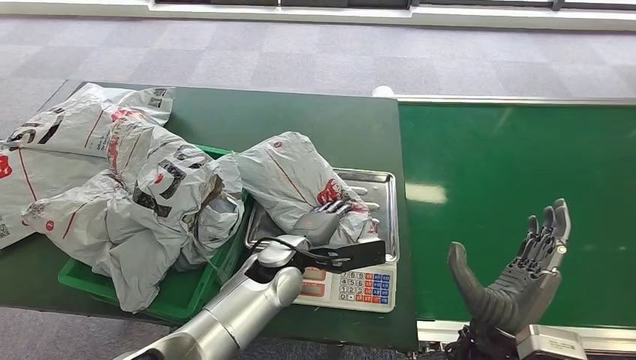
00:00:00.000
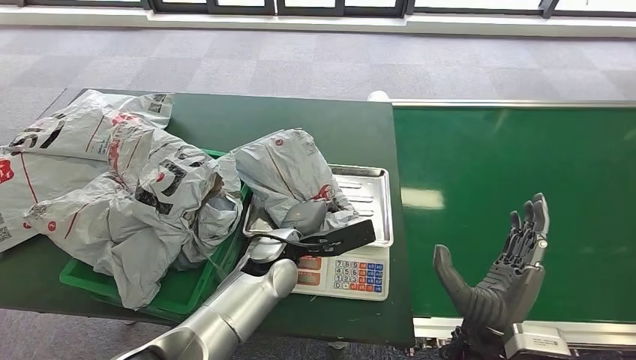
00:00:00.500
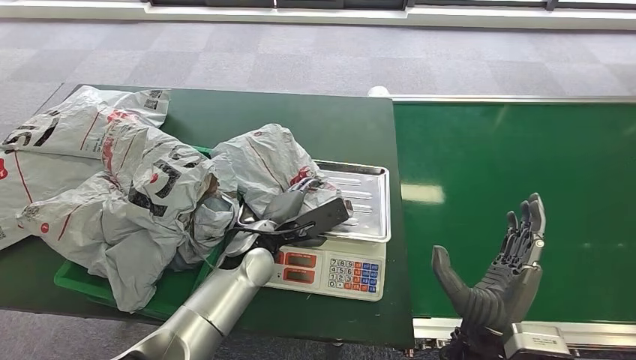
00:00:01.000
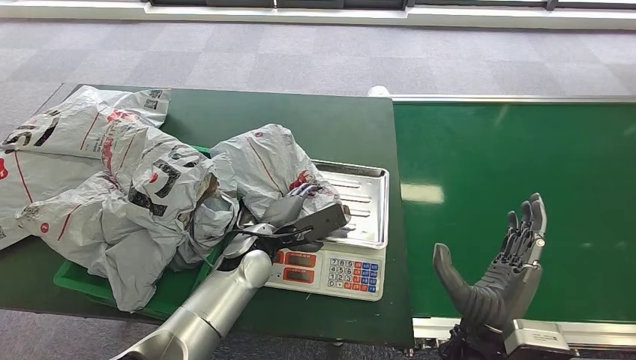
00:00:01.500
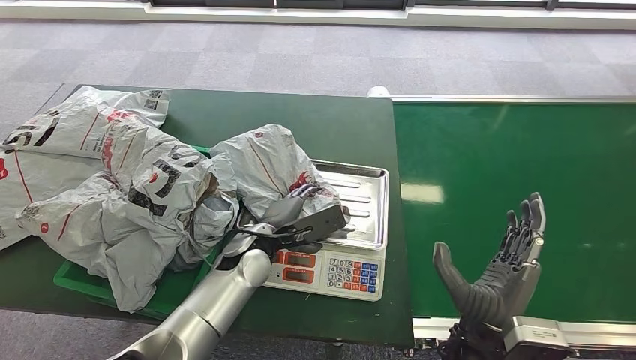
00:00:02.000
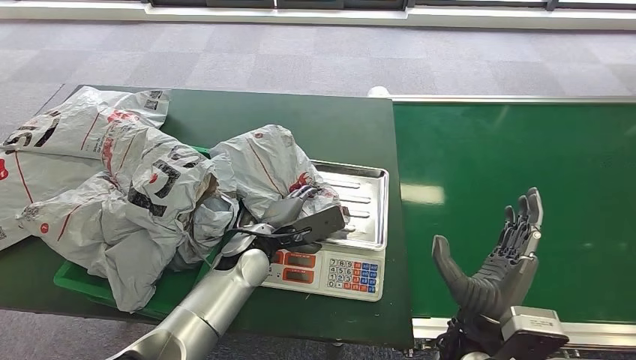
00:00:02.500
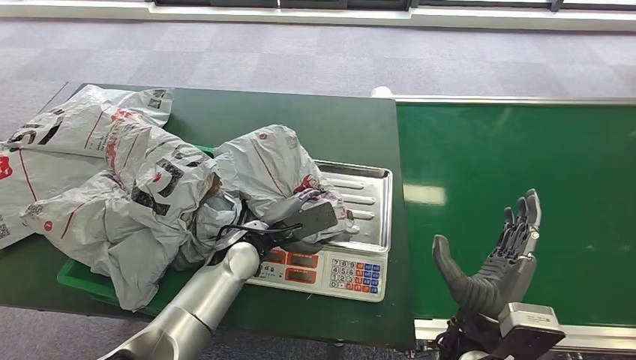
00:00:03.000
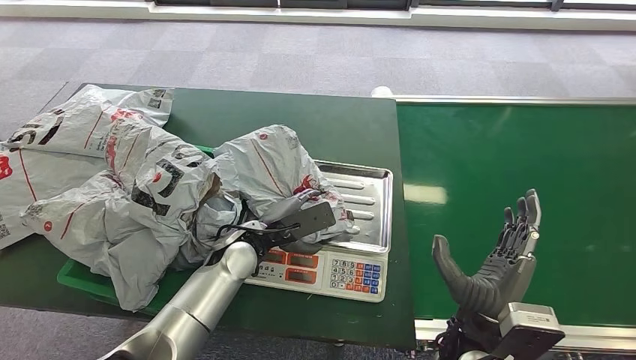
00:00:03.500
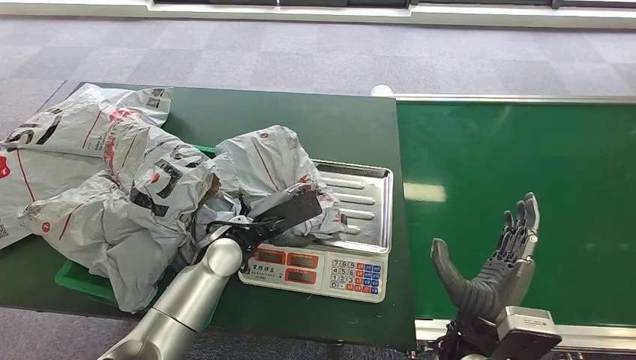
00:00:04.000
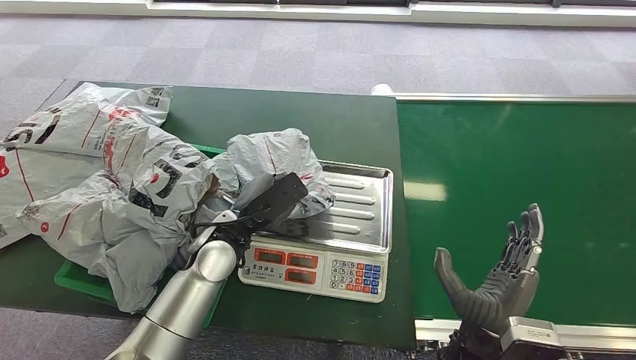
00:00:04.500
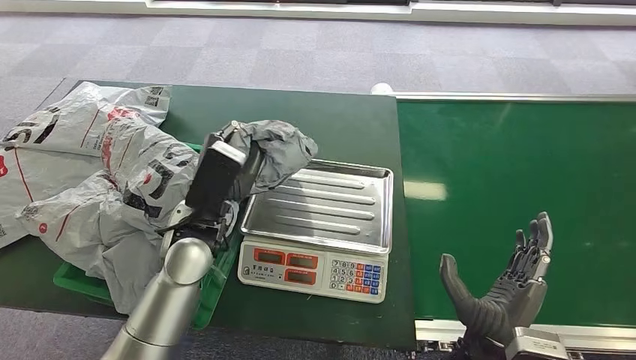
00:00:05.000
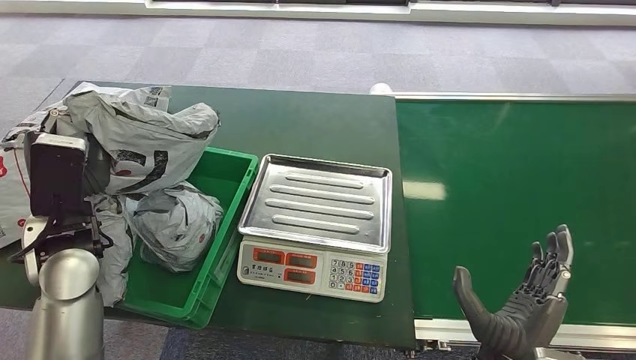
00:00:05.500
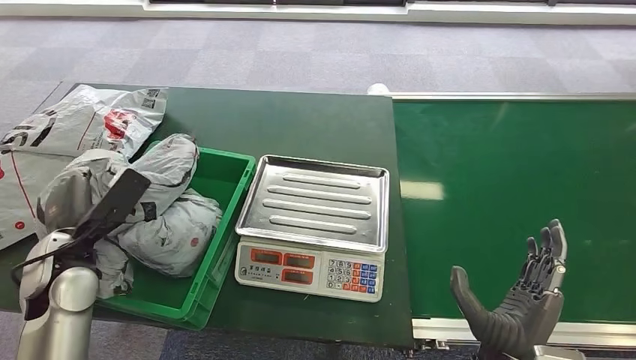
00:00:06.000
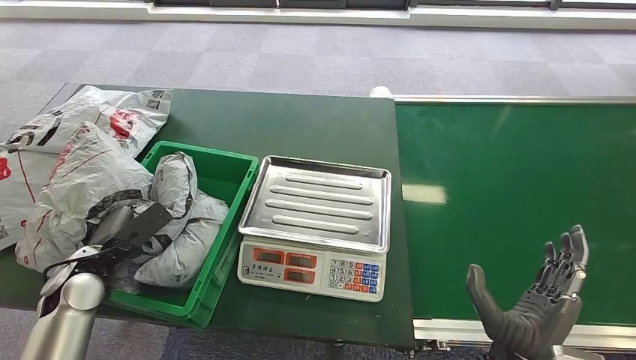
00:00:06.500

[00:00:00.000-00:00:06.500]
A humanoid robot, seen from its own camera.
Step, 00:00:02.500 to 00:00:05.000: Pick up the package from the inbound machine.
Step, 00:00:05.500 to 00:00:06.500: Place the package into the parcel locker.

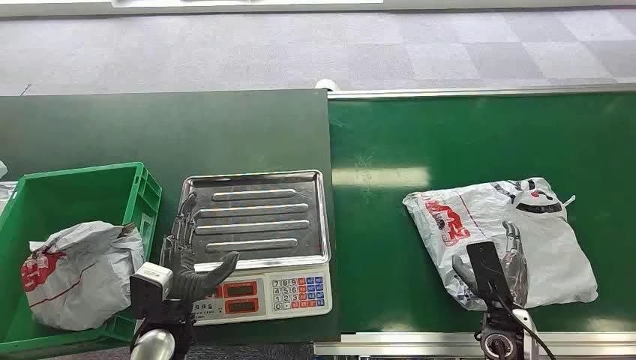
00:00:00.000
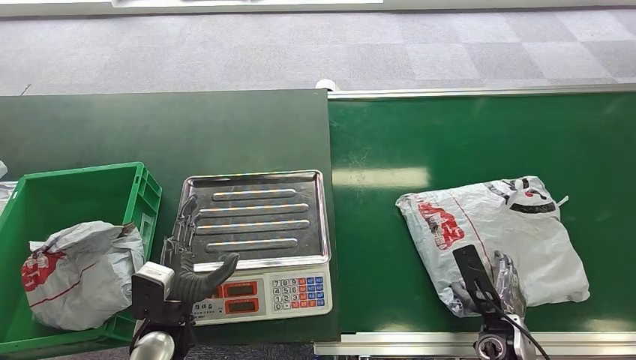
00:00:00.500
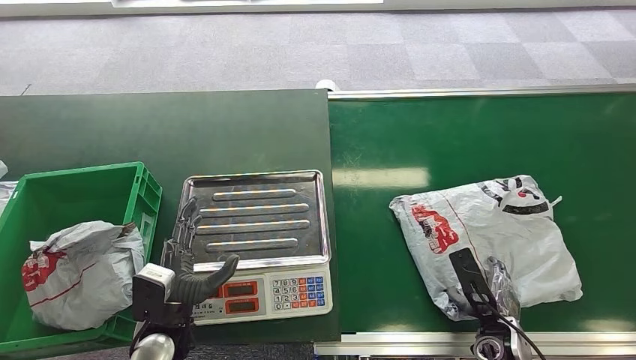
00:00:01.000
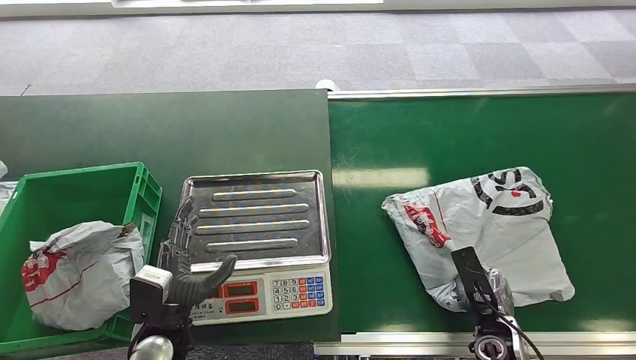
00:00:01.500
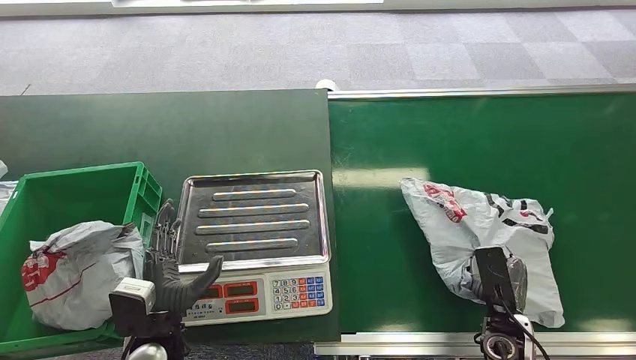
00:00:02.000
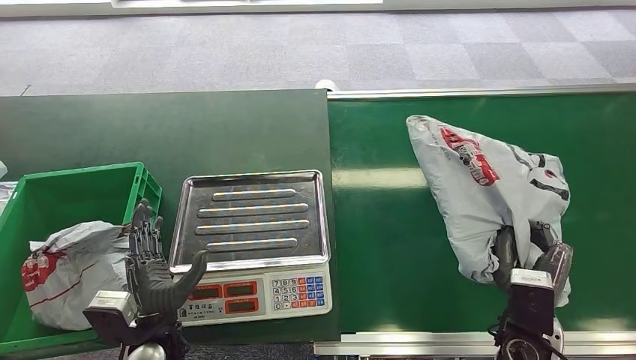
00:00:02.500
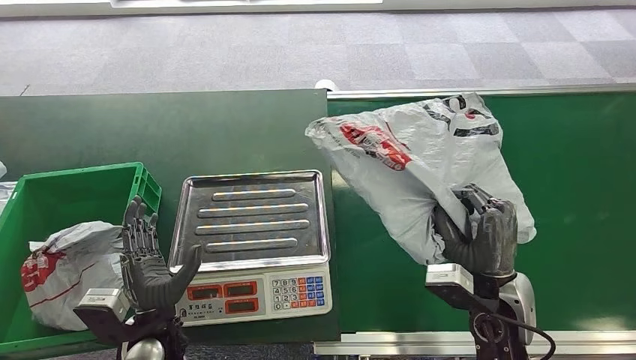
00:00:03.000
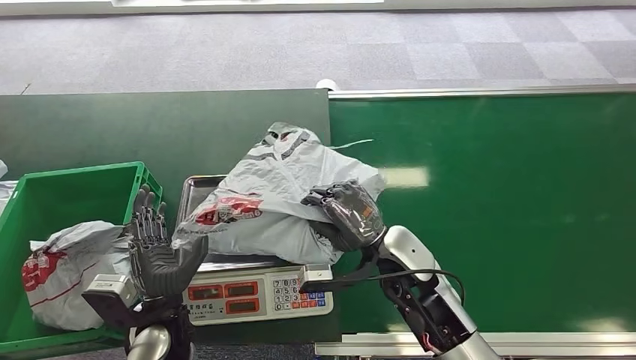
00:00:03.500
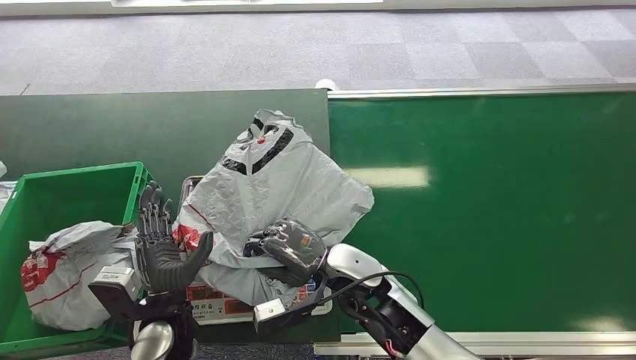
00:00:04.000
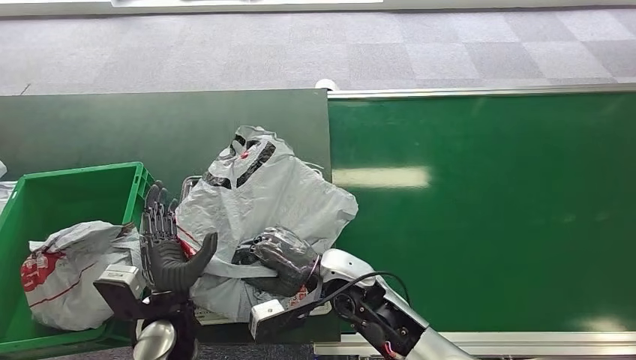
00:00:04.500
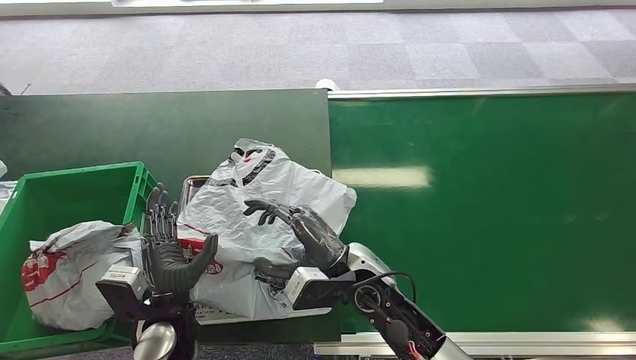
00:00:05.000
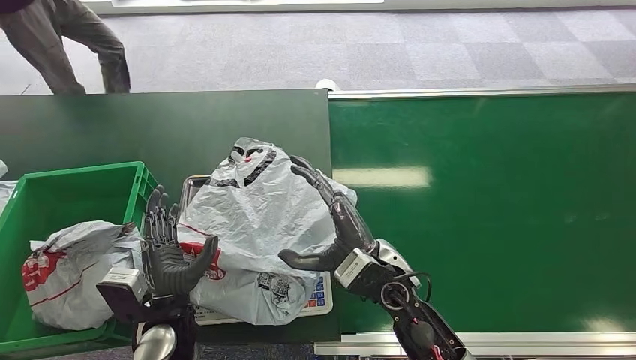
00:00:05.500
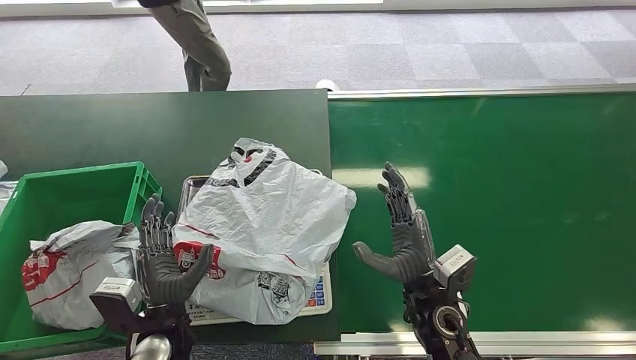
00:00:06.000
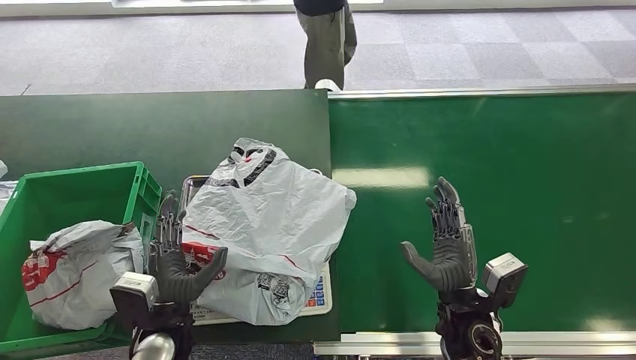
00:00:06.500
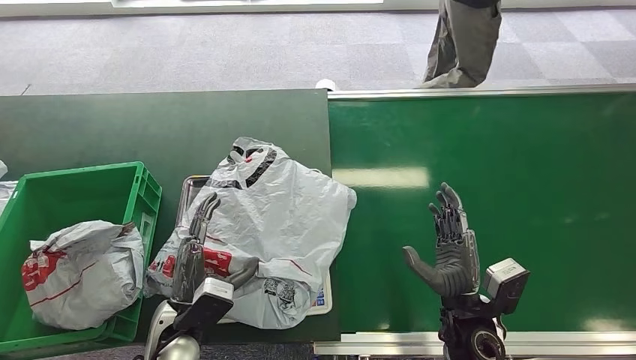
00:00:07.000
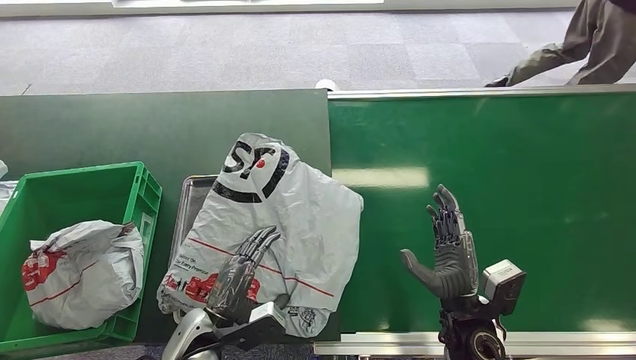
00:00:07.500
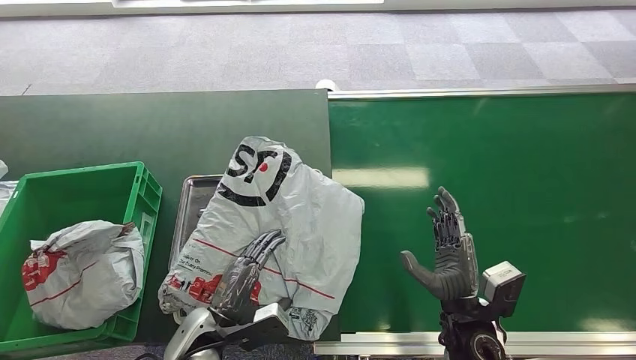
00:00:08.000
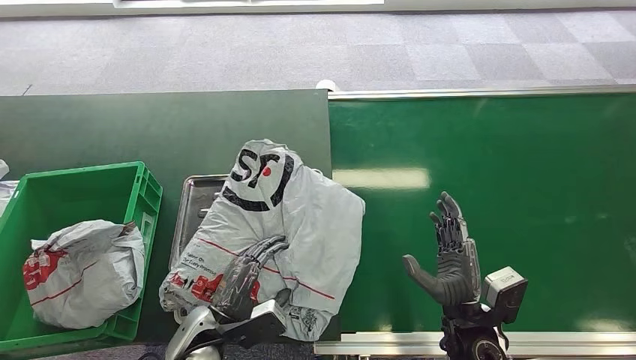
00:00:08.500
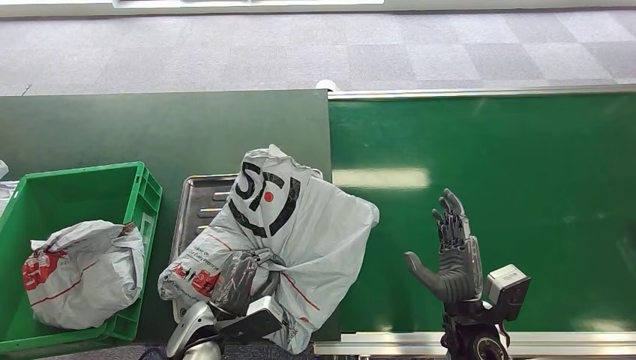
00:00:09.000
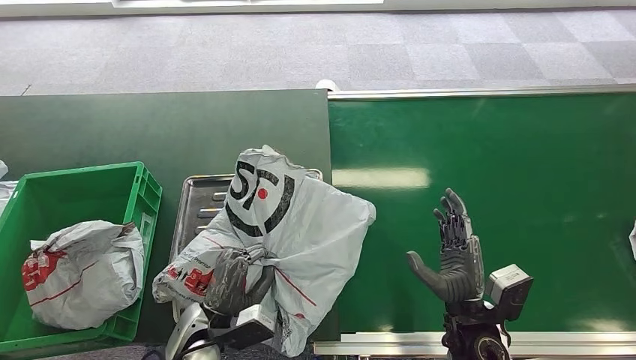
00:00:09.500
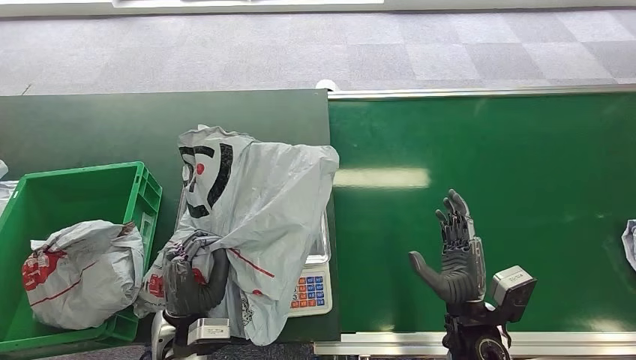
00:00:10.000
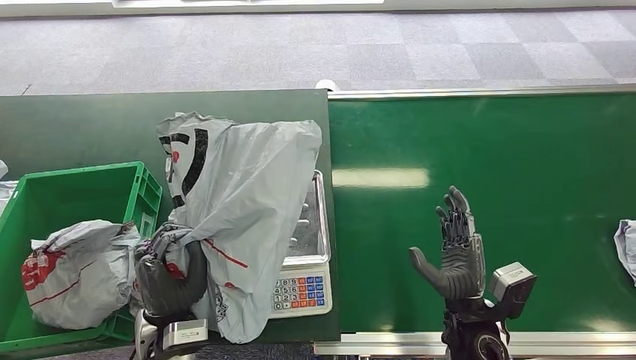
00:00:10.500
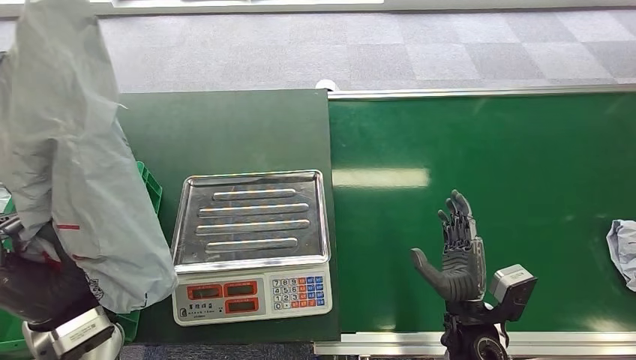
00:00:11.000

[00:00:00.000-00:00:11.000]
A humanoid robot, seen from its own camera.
Step, 00:00:00.000 to 00:00:02.500: Pick up the package from the conveyor belt.
Step, 00:00:03.500 to 00:00:05.000: Place the package onto the inbound machine.
Step, 00:00:08.500 to 00:00:10.500: Pick up the package from the inbound machine.
00:00:07.500 to 00:00:09.000: The hands stay close to where they were, moving slightly.

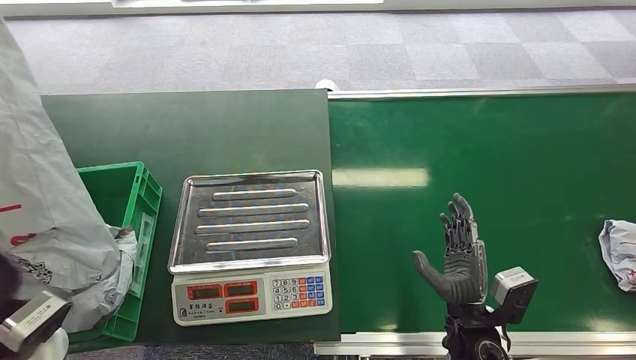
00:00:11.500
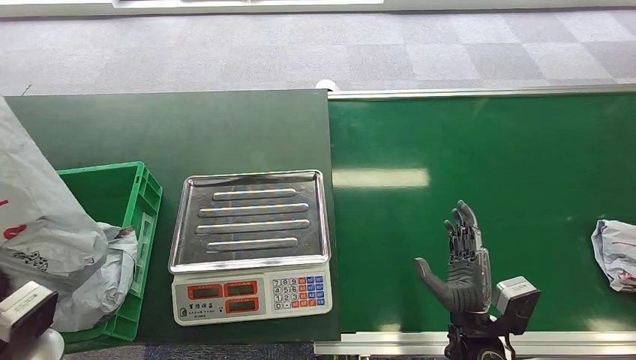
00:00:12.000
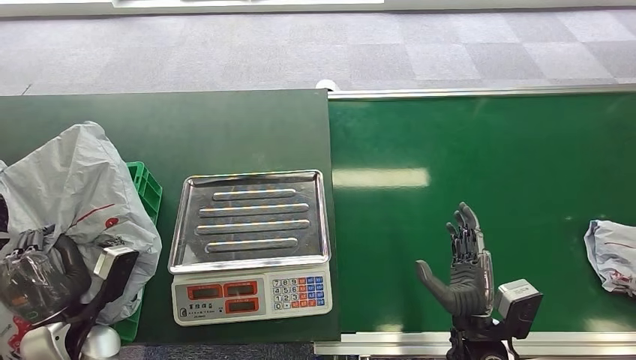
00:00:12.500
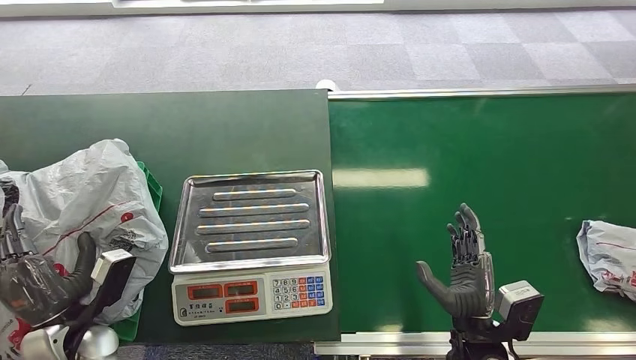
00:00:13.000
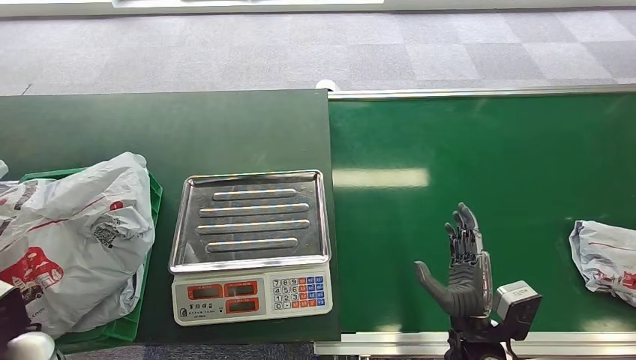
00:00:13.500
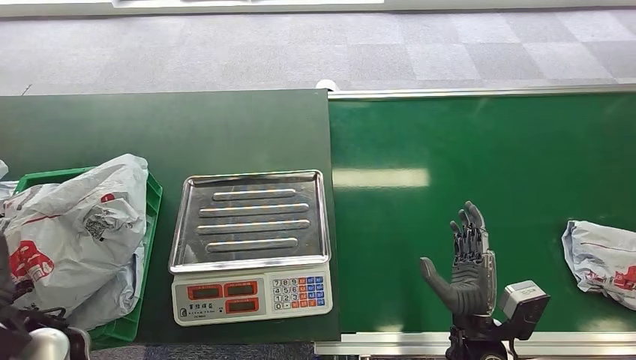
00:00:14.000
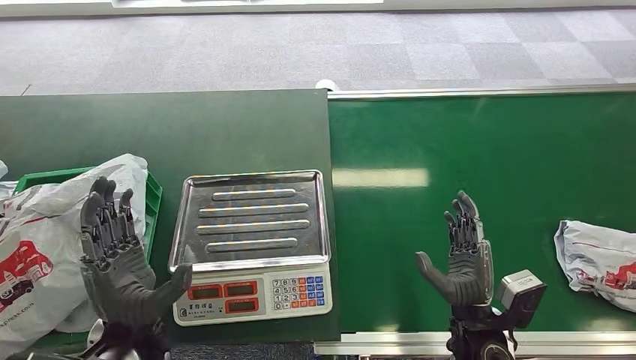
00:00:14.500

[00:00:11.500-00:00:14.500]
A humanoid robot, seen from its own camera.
Step, 00:00:12.000 to 00:00:14.500: Place the package into the parcel locker.
00:00:11.500 to 00:00:13.000: The left hand moves downward, approximately 10 cm.
00:00:13.000 to 00:00:14.500: The left hand shifts some 15 cm to the right and upward.
